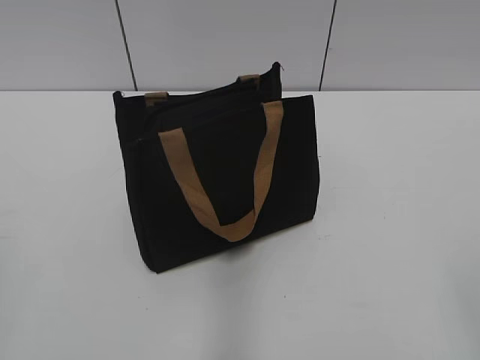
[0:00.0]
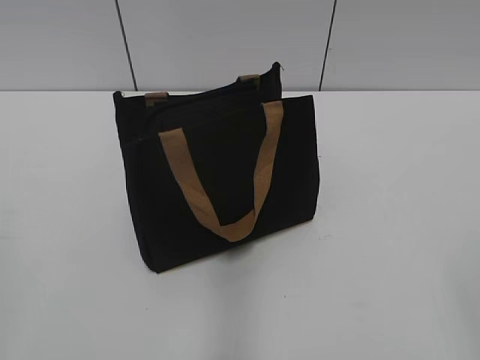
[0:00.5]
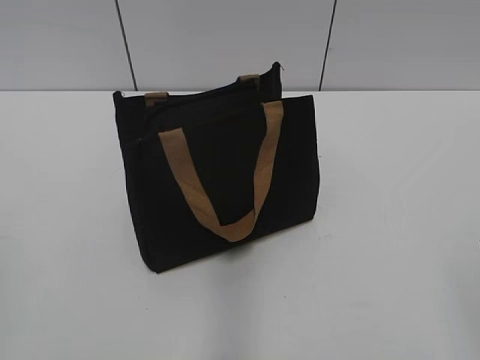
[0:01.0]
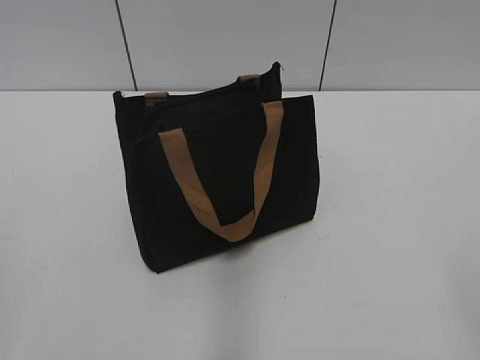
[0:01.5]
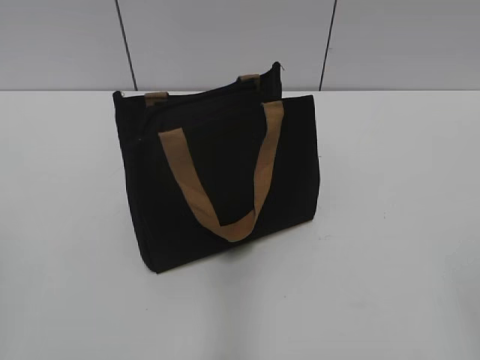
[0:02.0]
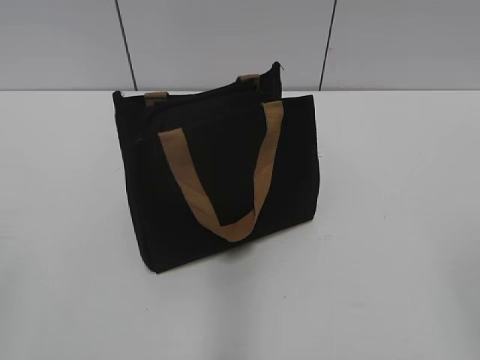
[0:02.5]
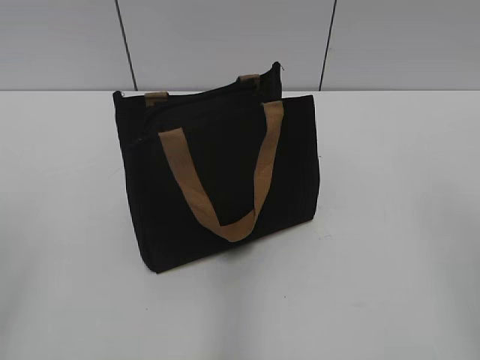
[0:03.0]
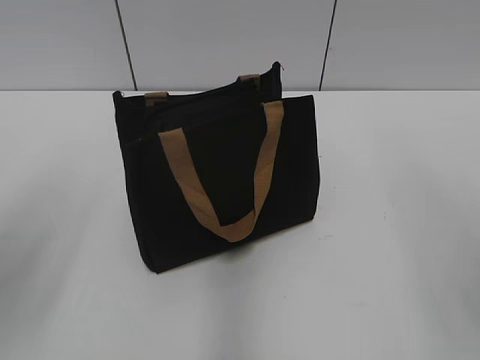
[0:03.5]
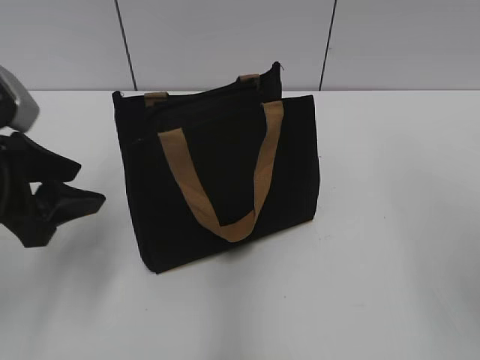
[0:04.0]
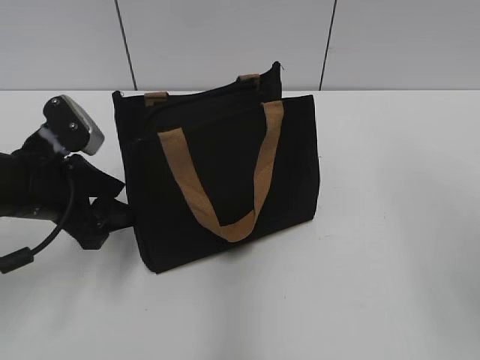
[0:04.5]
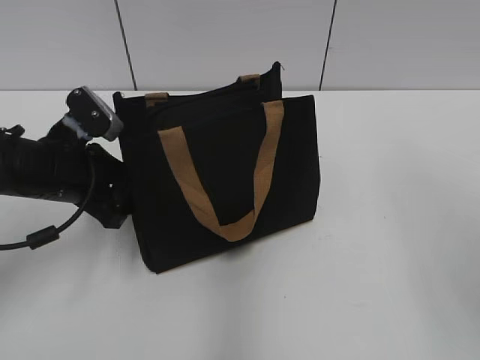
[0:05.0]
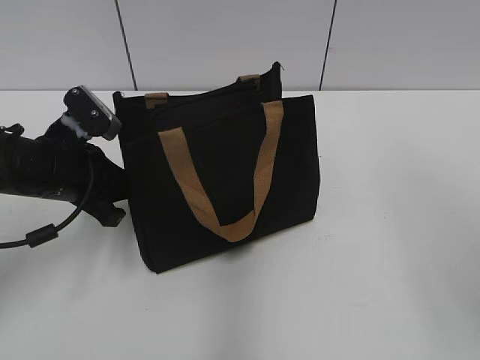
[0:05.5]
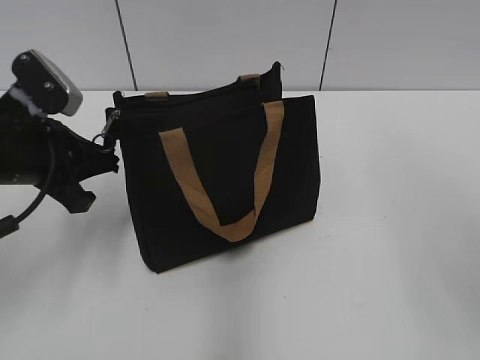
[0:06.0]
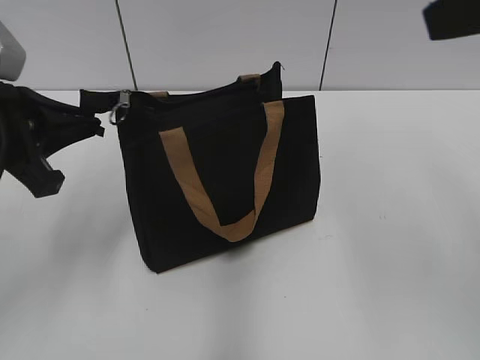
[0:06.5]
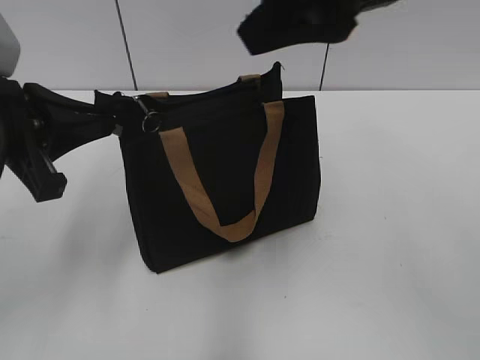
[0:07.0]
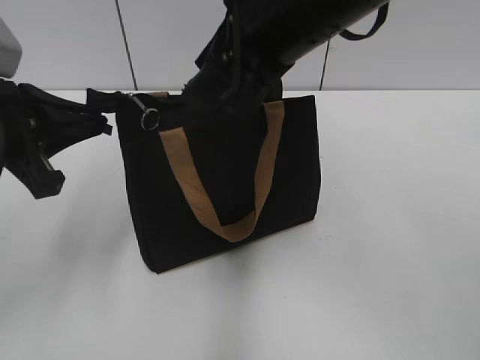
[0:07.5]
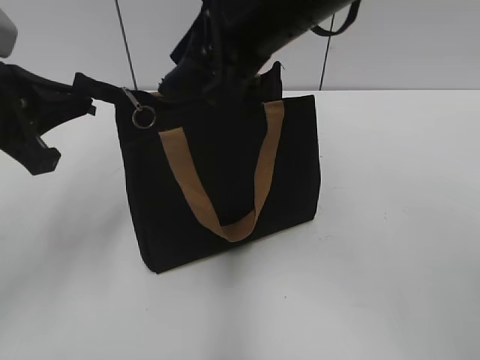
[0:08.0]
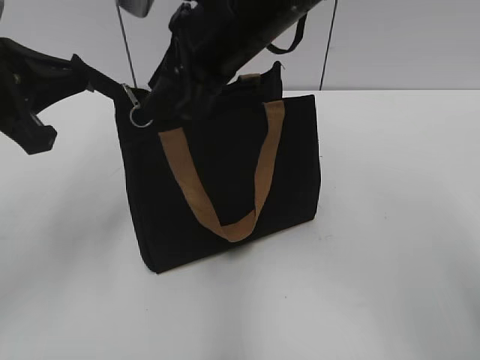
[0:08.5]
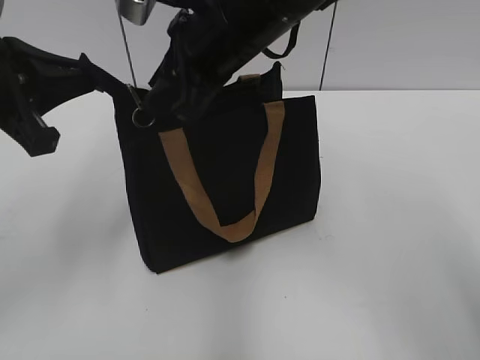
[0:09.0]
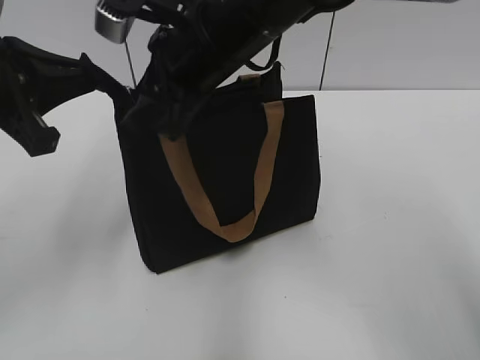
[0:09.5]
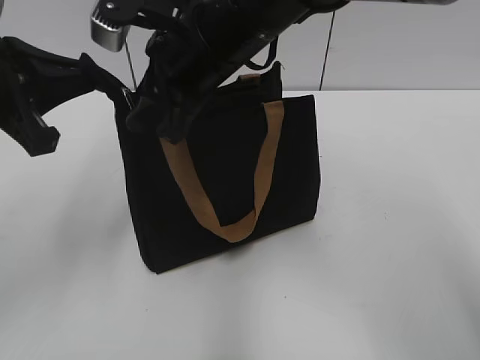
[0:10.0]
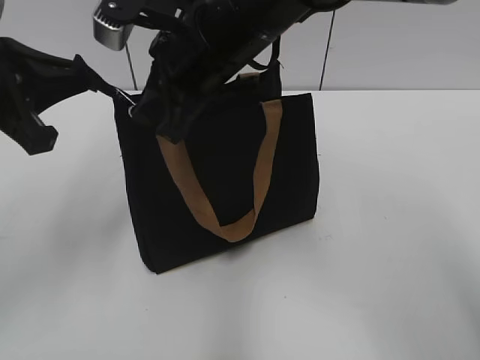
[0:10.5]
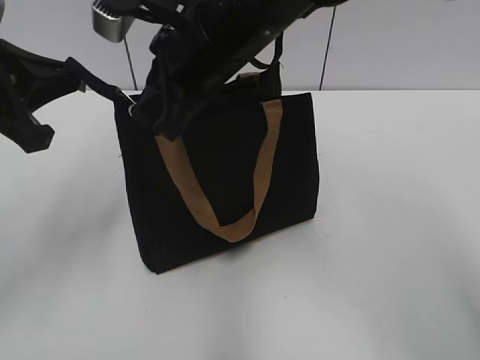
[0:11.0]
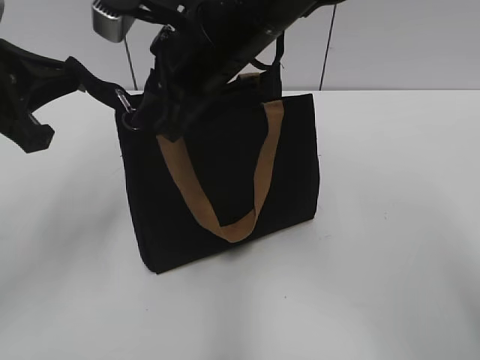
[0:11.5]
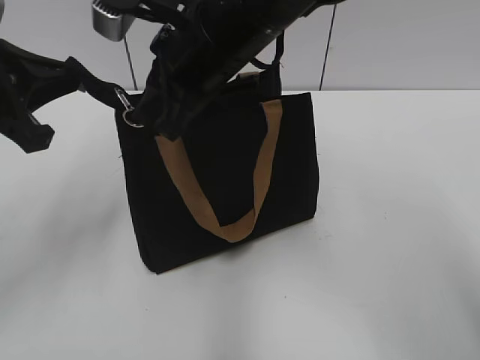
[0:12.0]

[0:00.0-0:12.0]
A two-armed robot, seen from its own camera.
0:02.0 to 0:04.0: The left gripper travels forward by some 20 cm, and opens.
0:04.0 to 0:06.0: The left gripper closes its fingers.
0:06.0 to 0:08.0: The left gripper is displaced upward by about 5 cm, while the right gripper travels to the left and forward by about 25 cm.
0:08.0 to 0:10.0: The right gripper heads to the left, covering some 5 cm.
0:10.0 to 0:12.0: The right gripper closes its fingers.

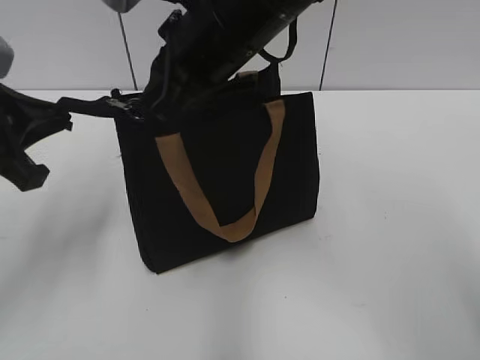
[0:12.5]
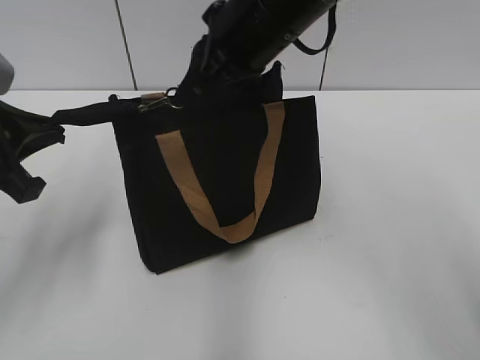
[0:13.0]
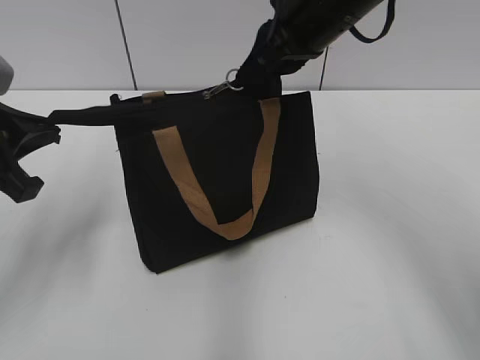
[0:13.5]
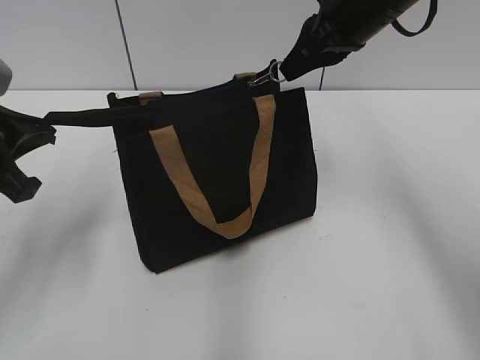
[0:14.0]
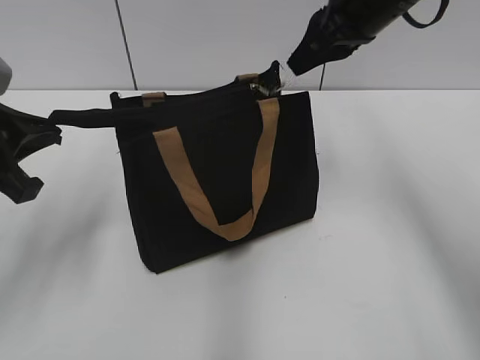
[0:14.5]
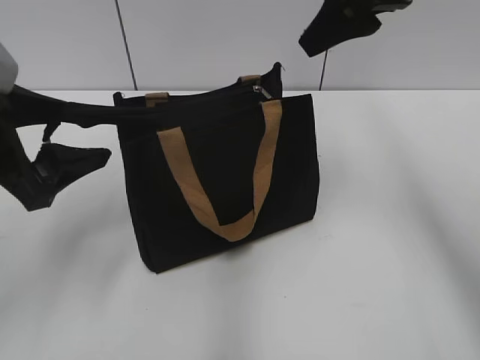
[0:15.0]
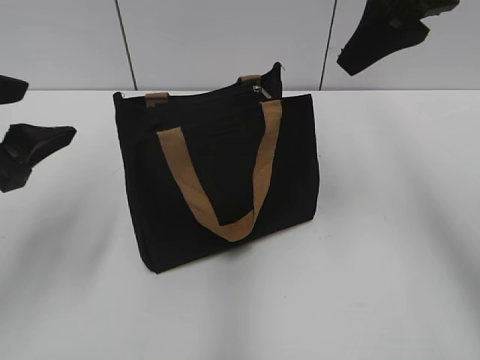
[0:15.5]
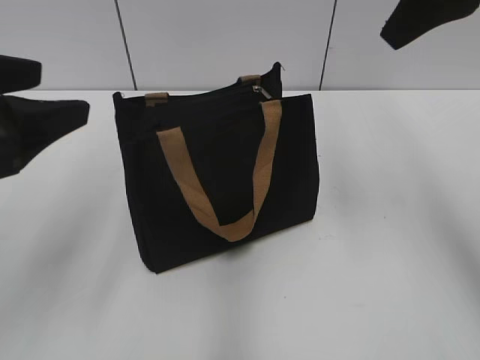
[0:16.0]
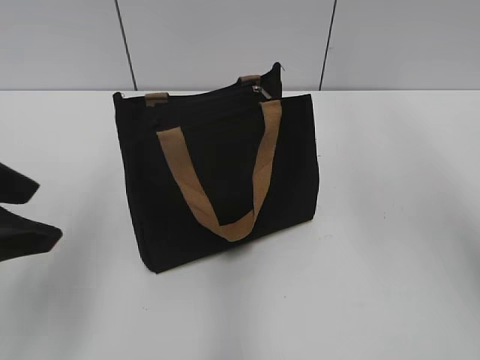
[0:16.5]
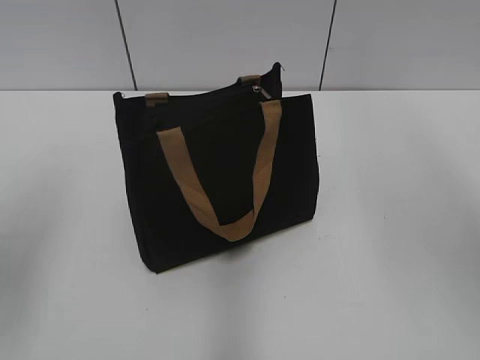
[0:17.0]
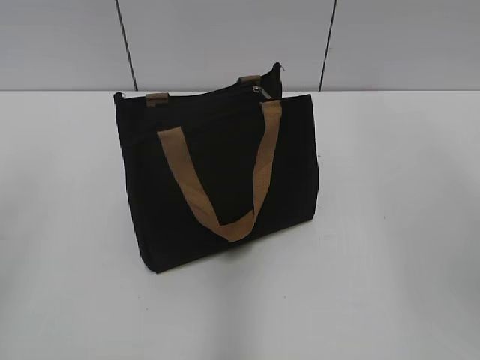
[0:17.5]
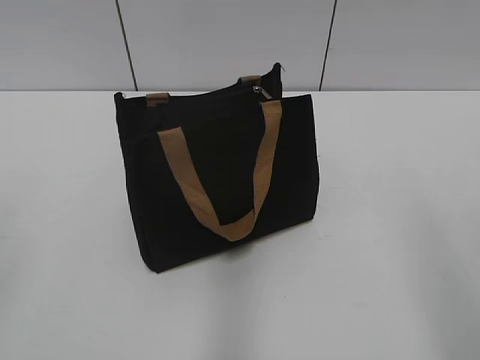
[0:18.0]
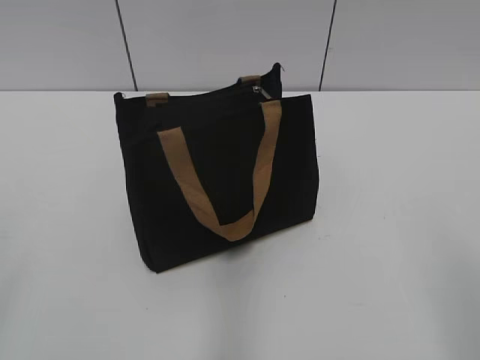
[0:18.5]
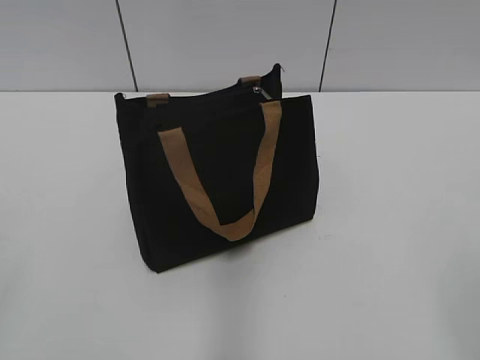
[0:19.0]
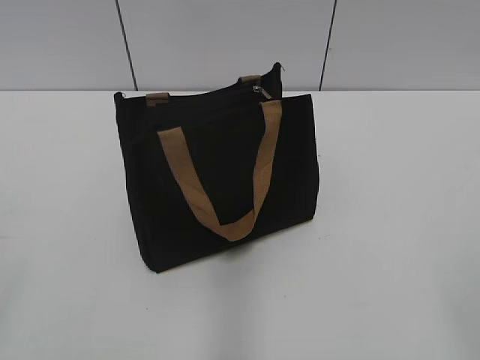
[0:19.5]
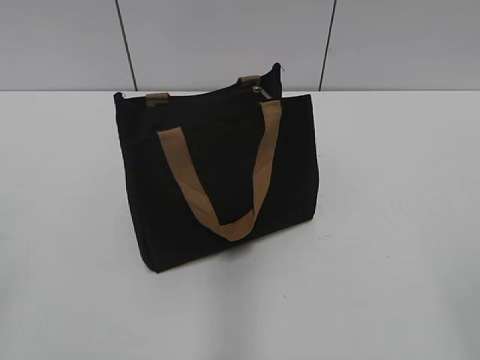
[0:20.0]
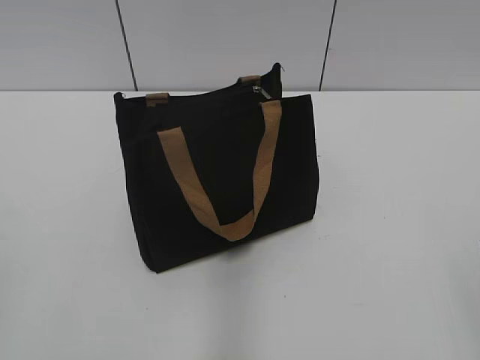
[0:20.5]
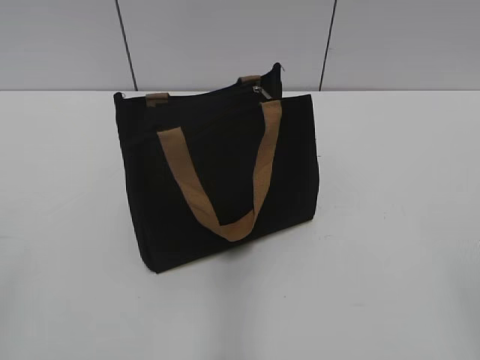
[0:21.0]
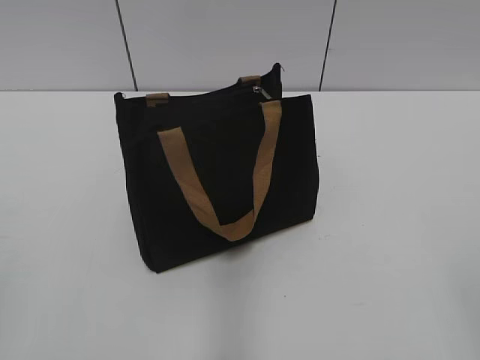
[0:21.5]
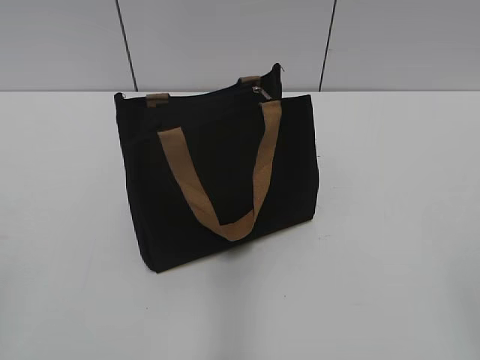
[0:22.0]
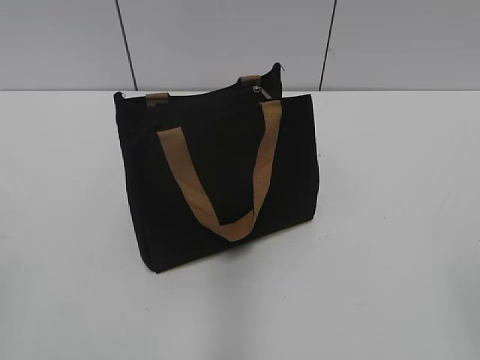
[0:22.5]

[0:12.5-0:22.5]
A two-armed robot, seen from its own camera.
0:12.5 to 0:14.5: The right gripper shifts approximately 15 cm to the right and forward.
0:14.5 to 0:16.5: The right gripper shifts approximately 20 cm upward, backward and to the right, and opens, while the left gripper is displaced backward by about 5 cm, and opens its fingers.
0:16.5 to 0:18.5: The right gripper heads backward and downward, covering some 30 cm, while the left gripper travels backward and to the left by approximately 20 cm.

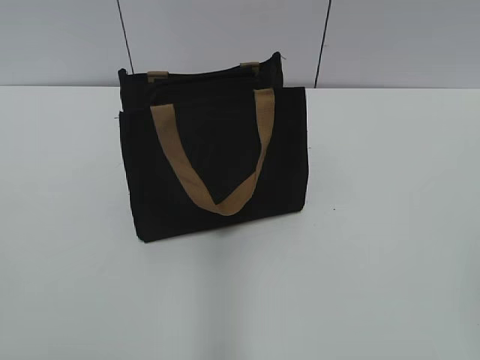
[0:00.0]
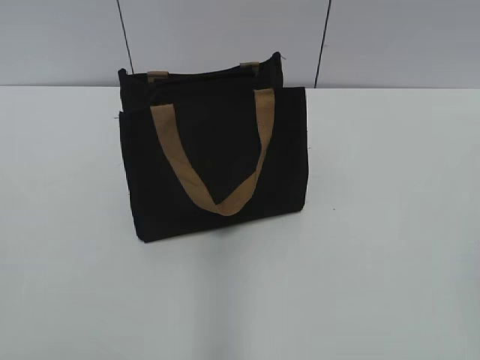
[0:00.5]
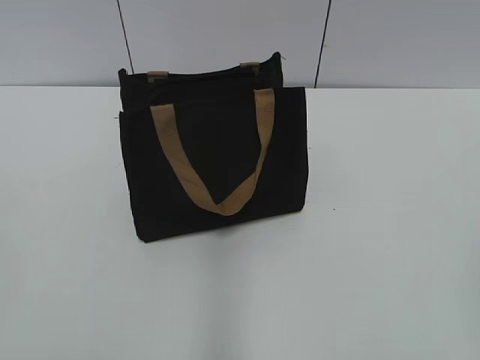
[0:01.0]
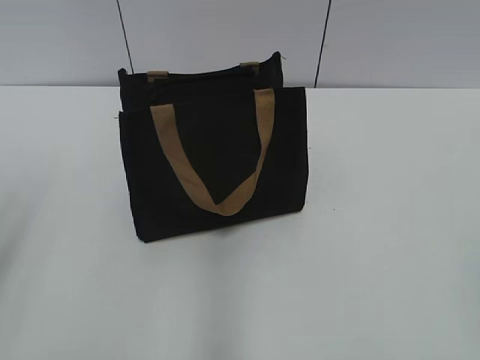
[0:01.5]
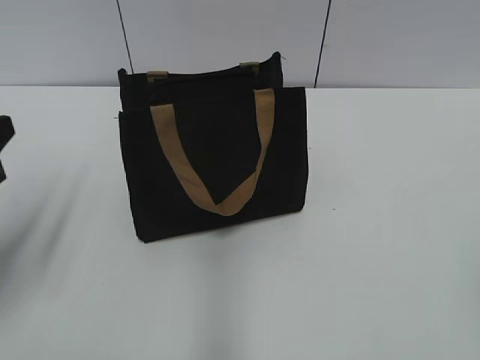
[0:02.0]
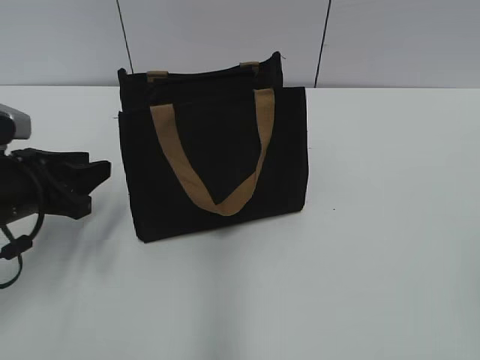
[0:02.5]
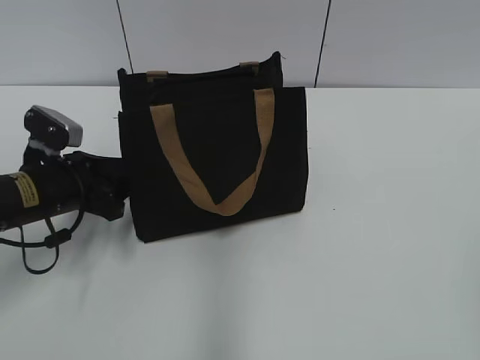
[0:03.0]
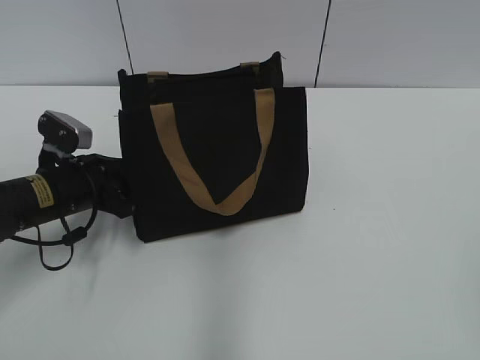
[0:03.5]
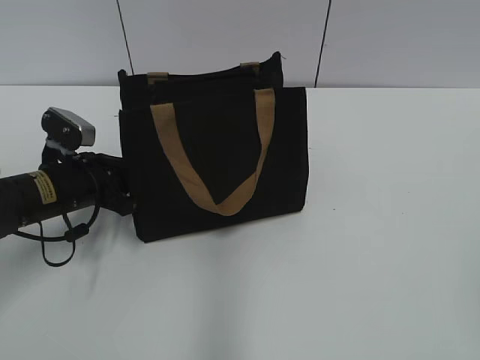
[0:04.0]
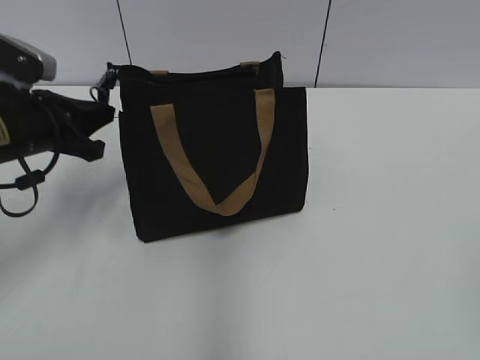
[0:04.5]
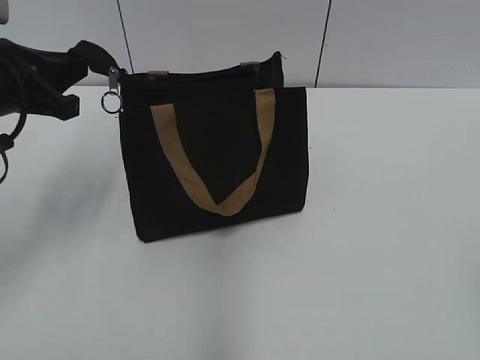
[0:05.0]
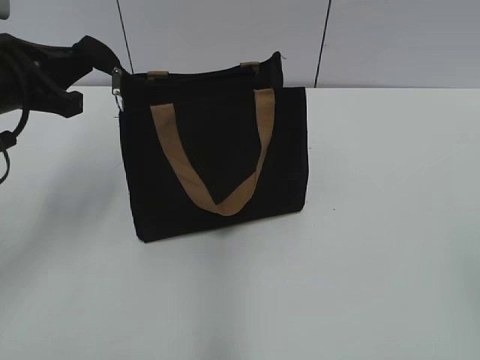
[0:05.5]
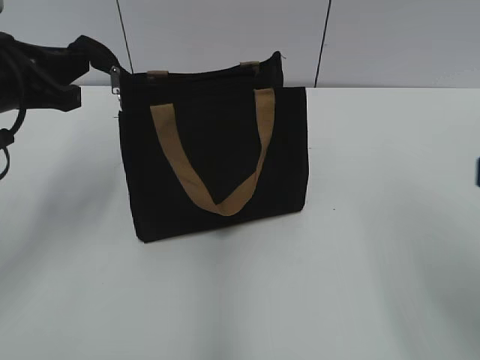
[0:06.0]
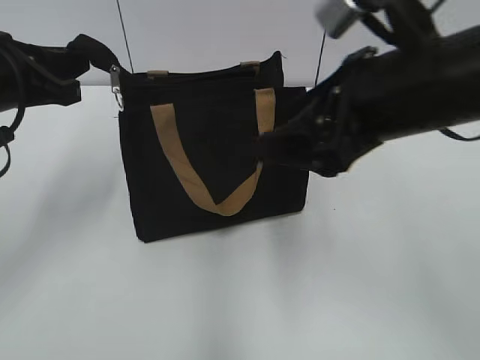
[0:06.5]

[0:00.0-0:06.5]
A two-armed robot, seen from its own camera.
0:02.0 to 0:04.5: The left gripper heads forward and to the right, covering roughly 15 cm, and closes its fingers.
0:04.5 to 0:06.5: The left gripper goes some 10 cm upward; the right gripper travels forward and to the left by about 30 cm.
